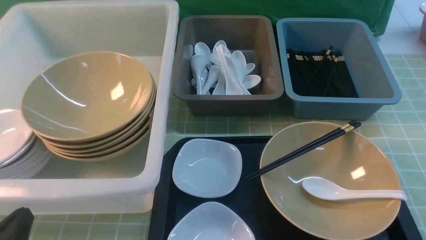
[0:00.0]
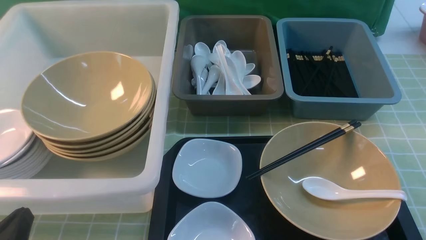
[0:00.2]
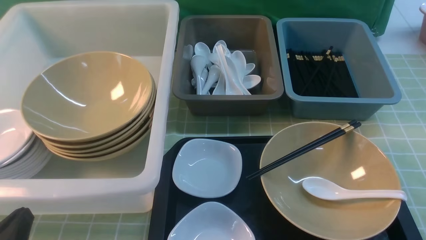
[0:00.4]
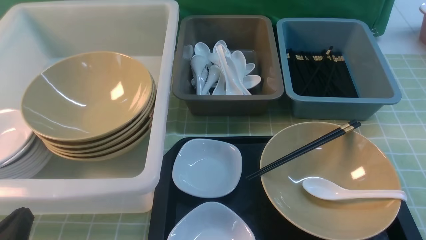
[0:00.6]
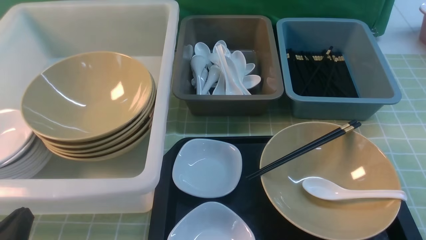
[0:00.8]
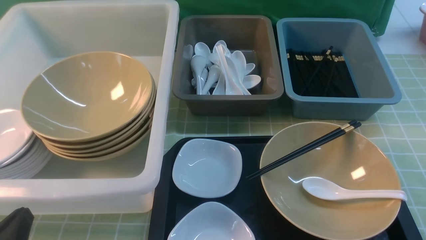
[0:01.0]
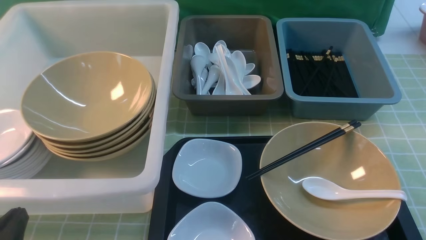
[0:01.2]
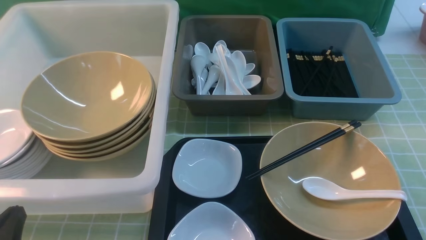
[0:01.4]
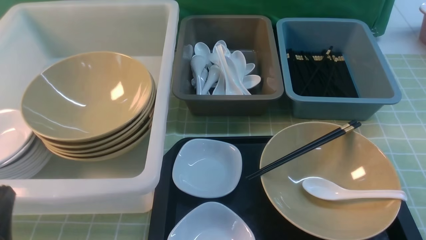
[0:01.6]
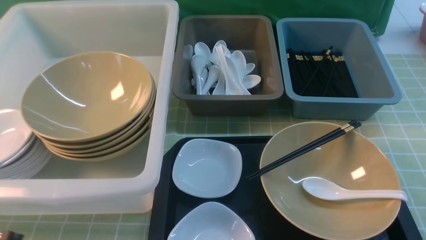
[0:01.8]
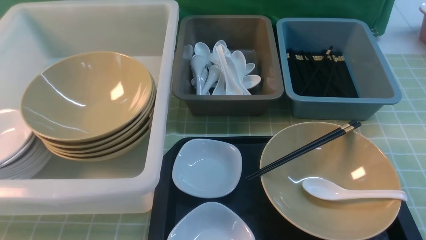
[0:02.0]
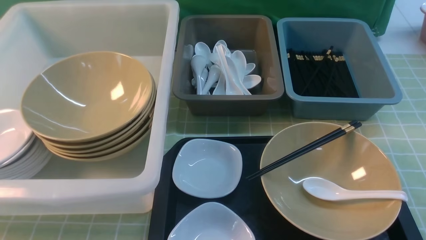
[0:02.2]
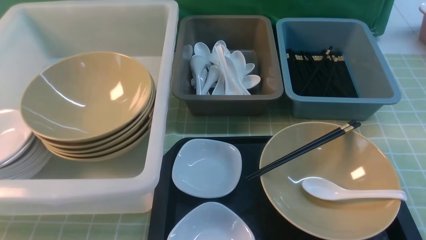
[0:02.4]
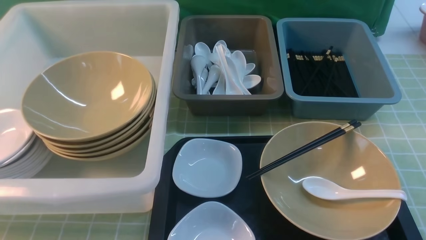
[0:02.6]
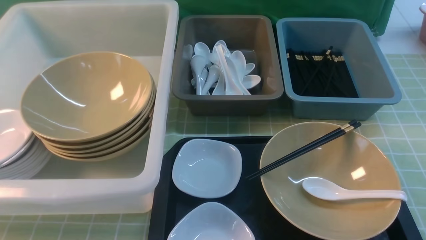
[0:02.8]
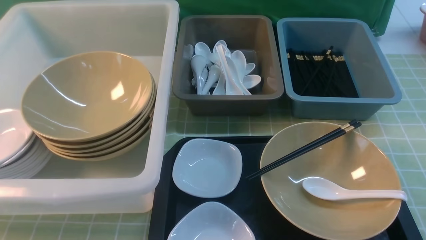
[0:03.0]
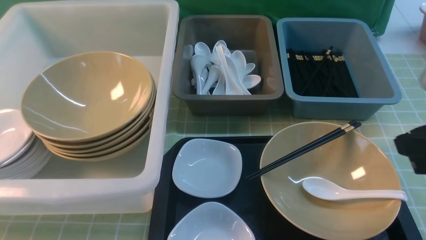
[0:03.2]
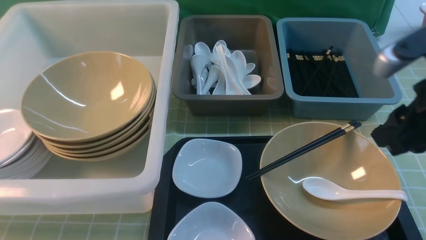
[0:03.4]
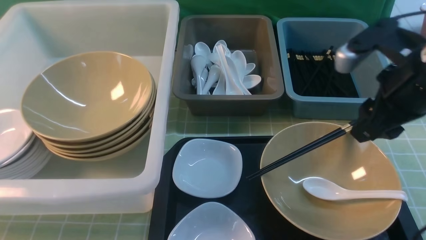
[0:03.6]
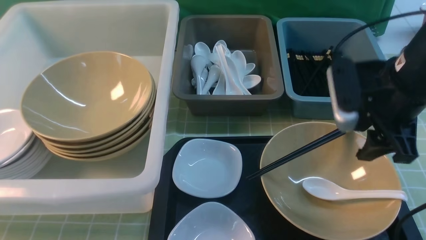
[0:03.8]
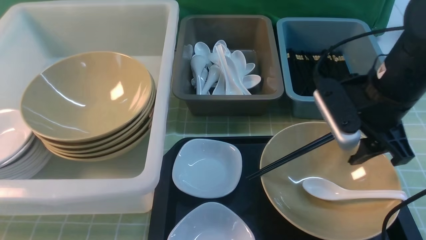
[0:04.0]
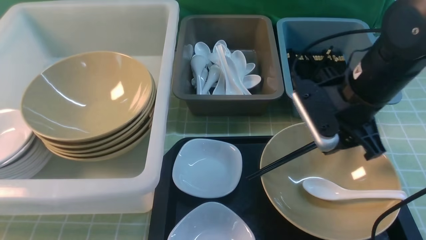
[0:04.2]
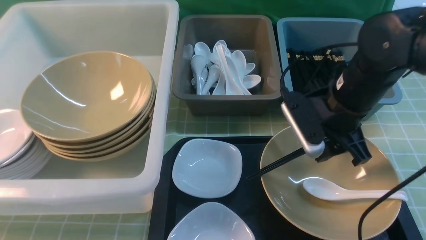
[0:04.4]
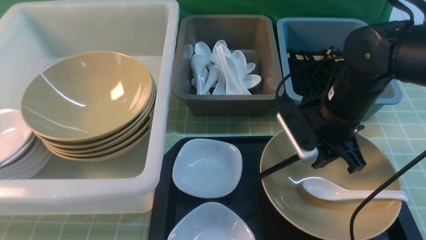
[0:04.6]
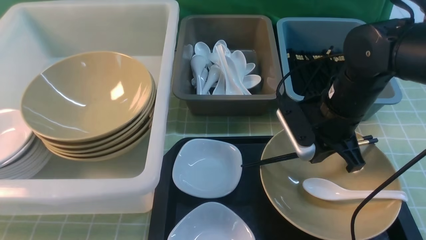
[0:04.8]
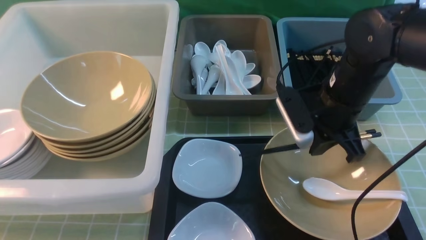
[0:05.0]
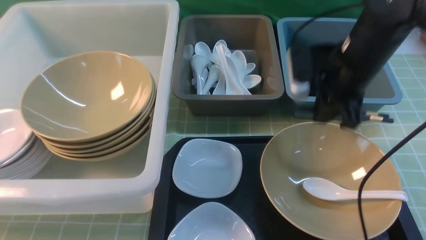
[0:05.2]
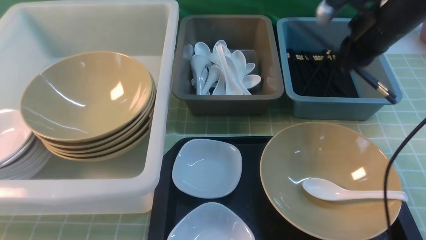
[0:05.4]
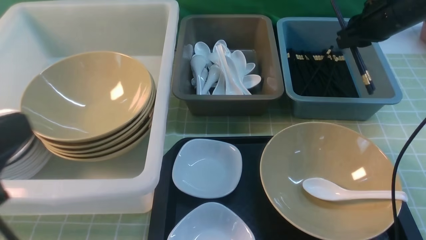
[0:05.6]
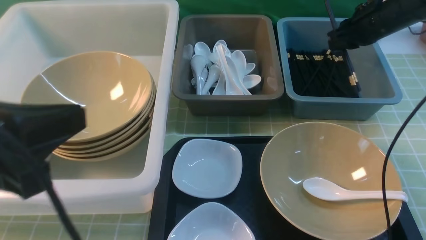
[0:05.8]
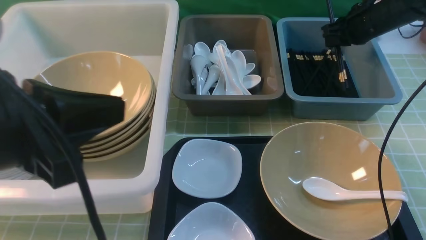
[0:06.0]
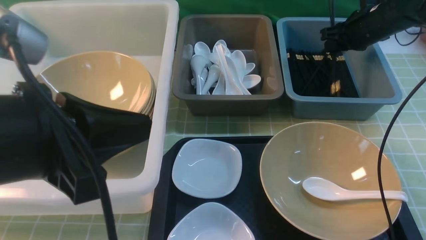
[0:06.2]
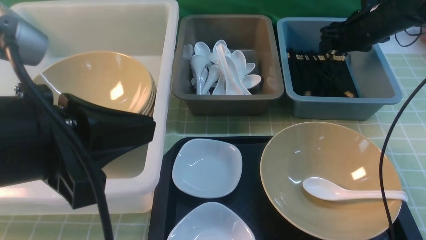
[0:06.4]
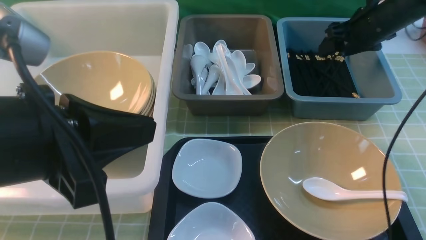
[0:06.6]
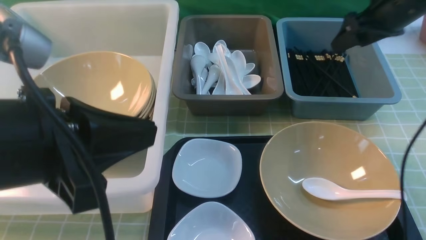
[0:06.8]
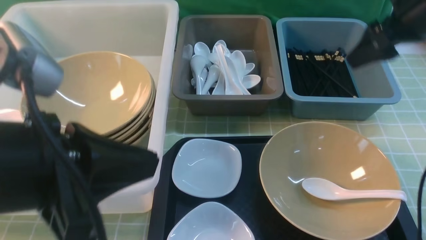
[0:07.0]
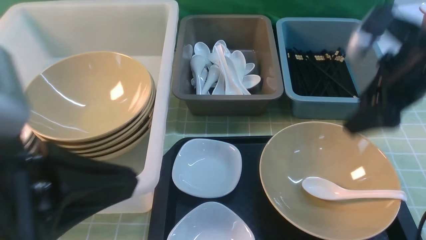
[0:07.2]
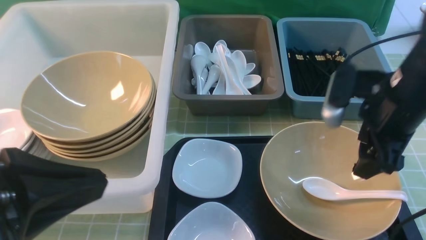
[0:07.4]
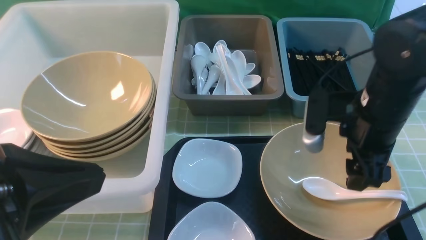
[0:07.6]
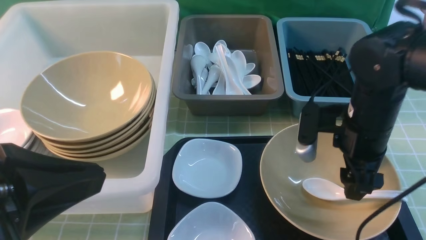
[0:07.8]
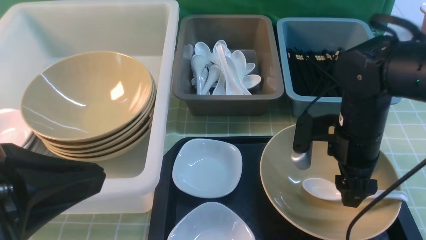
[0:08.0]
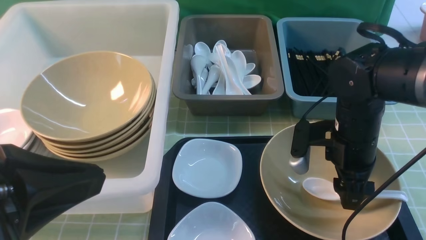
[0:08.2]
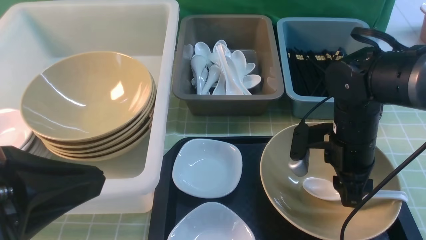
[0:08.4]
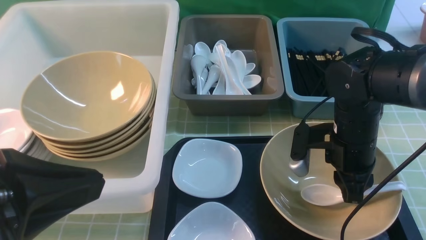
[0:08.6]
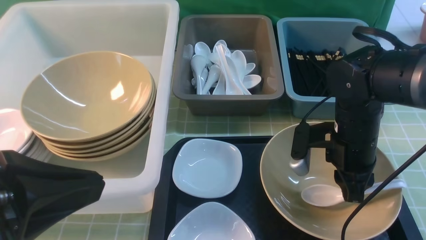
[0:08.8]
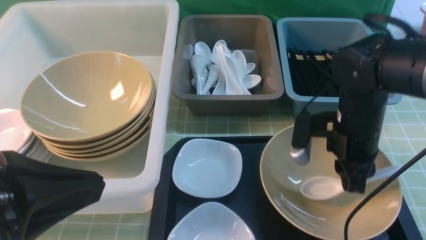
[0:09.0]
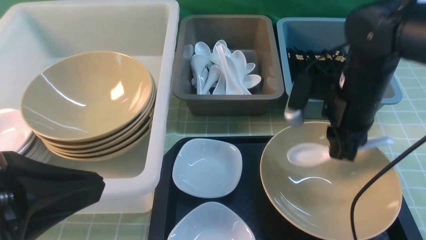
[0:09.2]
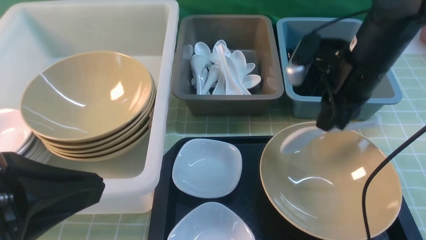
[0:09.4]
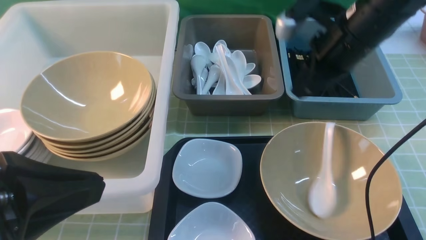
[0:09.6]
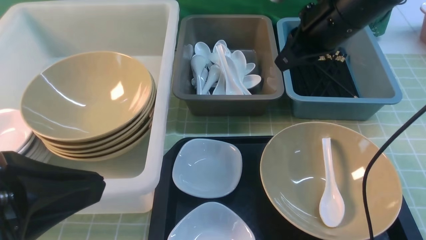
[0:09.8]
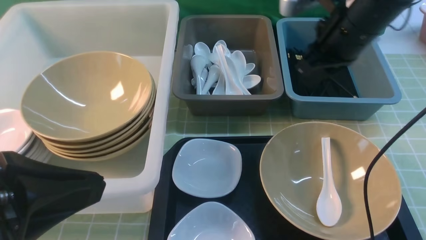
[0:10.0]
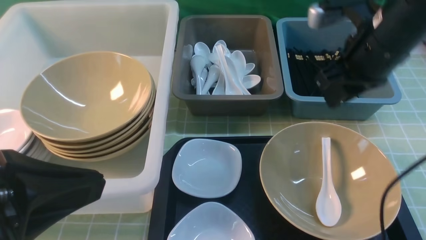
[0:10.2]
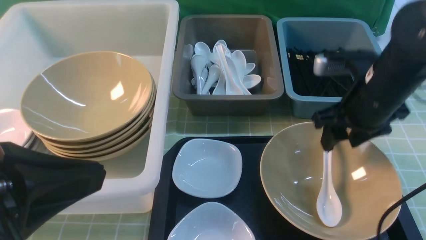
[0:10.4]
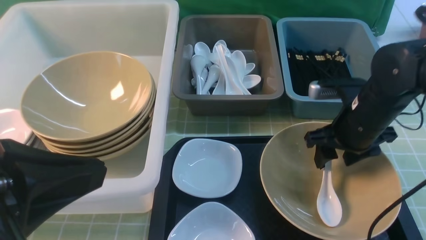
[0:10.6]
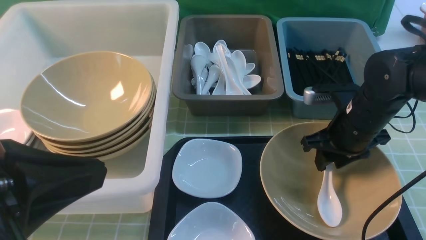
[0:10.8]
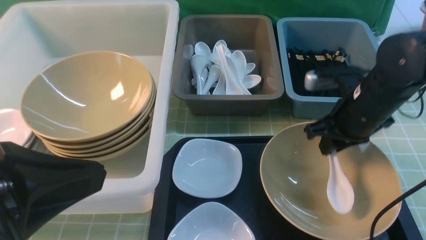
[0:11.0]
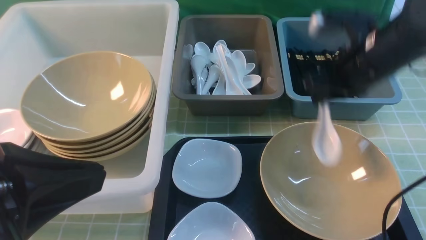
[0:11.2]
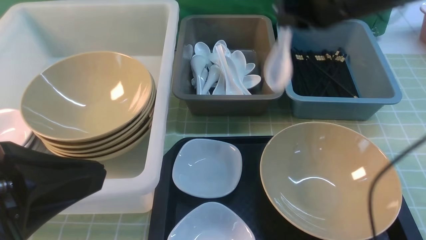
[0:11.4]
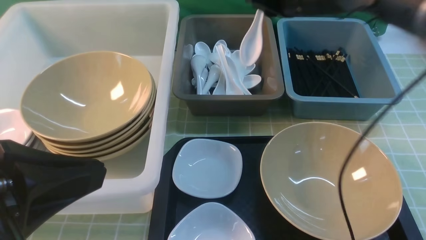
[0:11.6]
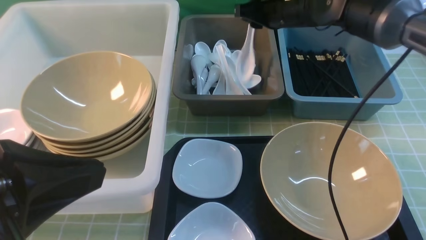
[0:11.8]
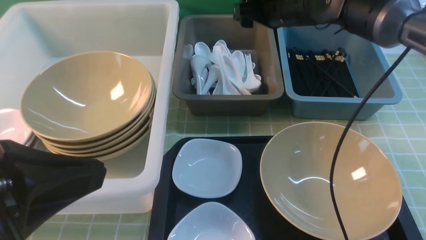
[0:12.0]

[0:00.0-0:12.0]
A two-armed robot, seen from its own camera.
Task of the whole recording: on green table put chopsticks spoon bowls plates into blue grey white boxes.
Step, 0:00.0 to 0:05.0: use the right arm to grab the chopsticks.
Step, 0:05.2 to 0:06.6: use the right arm to put the chopsticks into the small storage box on the right.
Step, 0:06.8 to 0:11.0: use the right arm to grab the soup spoon in the middle.
0:00.0 to 0:01.6: The grippers make only small movements.
0:01.6 to 0:03.0: The left gripper goes approximately 15 cm upward.
0:03.0 to 0:04.4: The right gripper shifts roughly 25 cm forward, to the left and downward.
0:04.4 to 0:06.0: The left gripper is displaced to the right and forward by roughly 10 cm, while the right gripper goes about 20 cm forward and to the right, and closes.
0:06.0 to 0:07.6: The right gripper moves backward and to the left, about 20 cm, and opens up.
0:07.6 to 0:09.0: The right gripper closes.
0:09.0 to 0:10.4: The right gripper reaches roughly 10 cm upward, then returns, and opens.
0:10.4 to 0:12.0: The right gripper moves forward, to the left and upward, about 15 cm, and closes, then opens again.

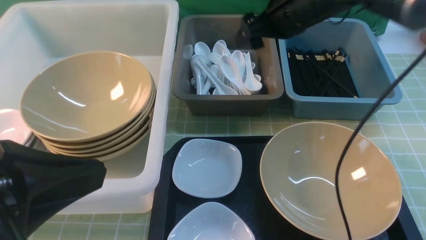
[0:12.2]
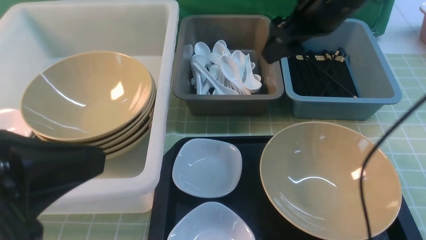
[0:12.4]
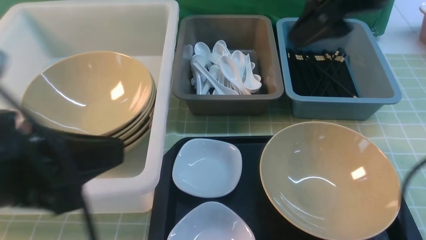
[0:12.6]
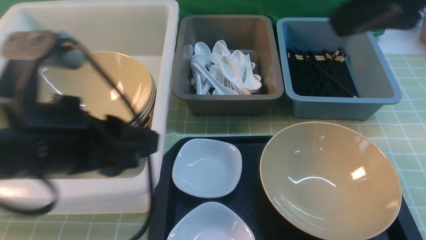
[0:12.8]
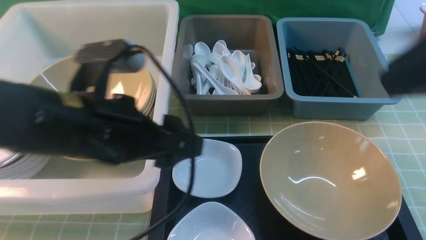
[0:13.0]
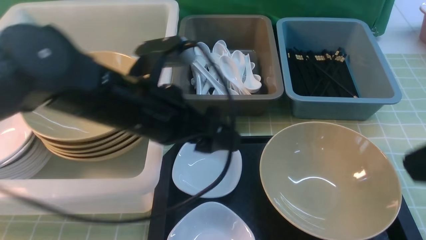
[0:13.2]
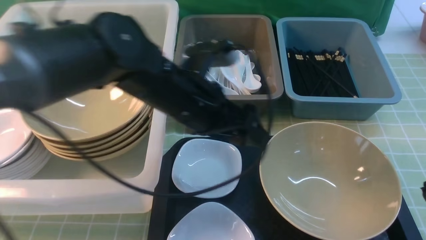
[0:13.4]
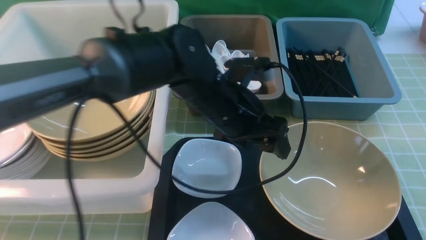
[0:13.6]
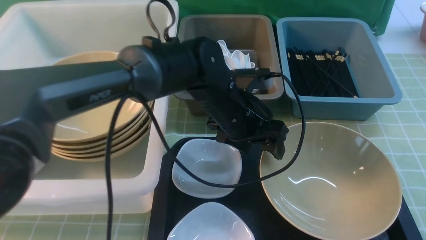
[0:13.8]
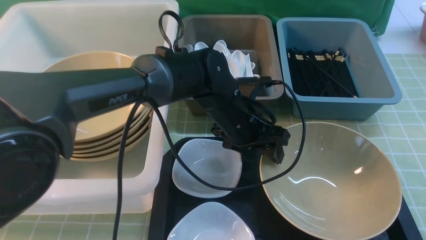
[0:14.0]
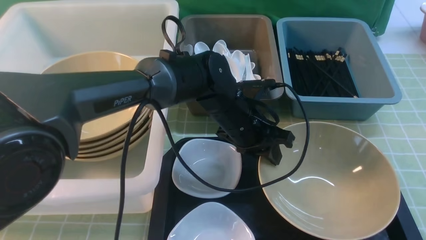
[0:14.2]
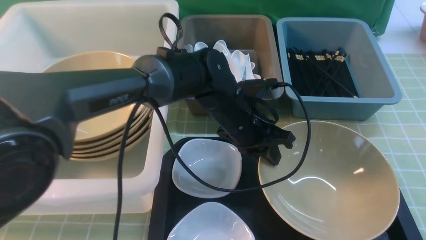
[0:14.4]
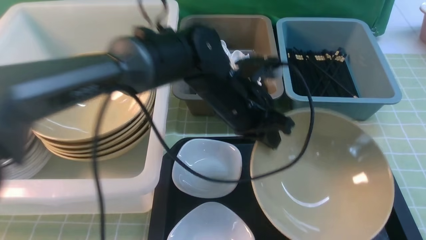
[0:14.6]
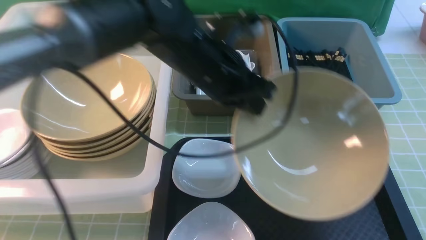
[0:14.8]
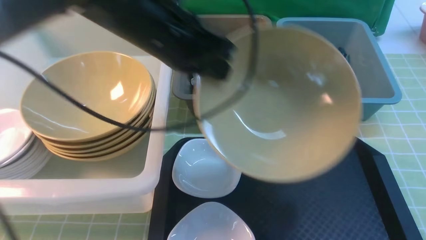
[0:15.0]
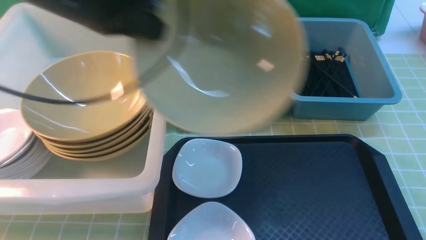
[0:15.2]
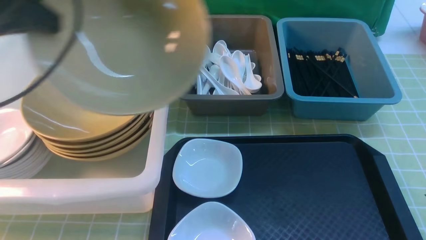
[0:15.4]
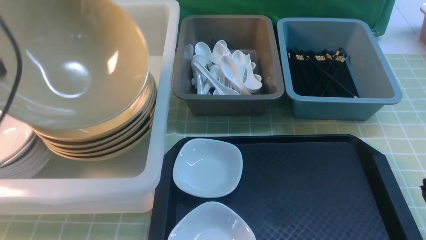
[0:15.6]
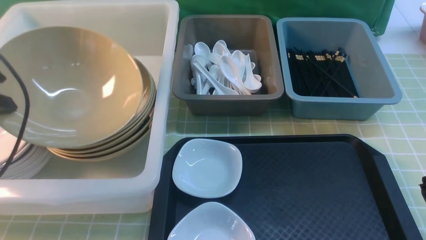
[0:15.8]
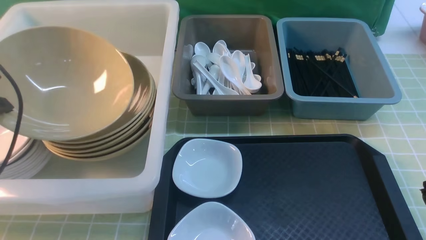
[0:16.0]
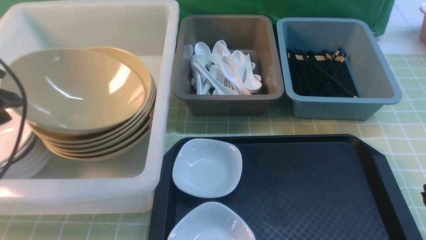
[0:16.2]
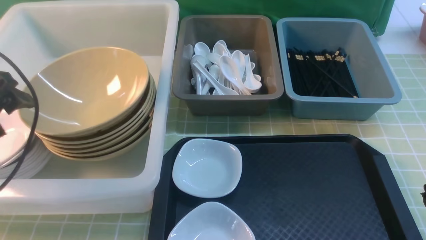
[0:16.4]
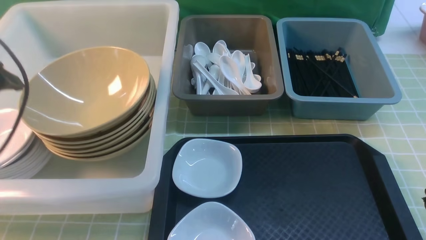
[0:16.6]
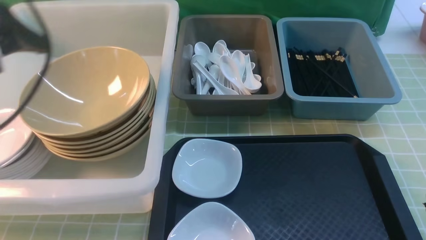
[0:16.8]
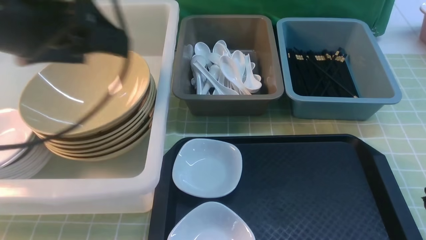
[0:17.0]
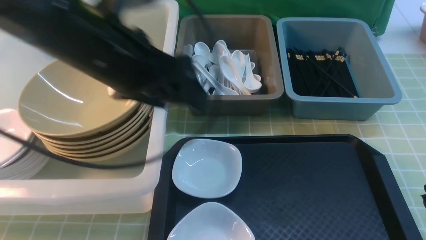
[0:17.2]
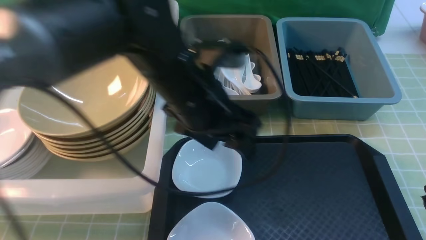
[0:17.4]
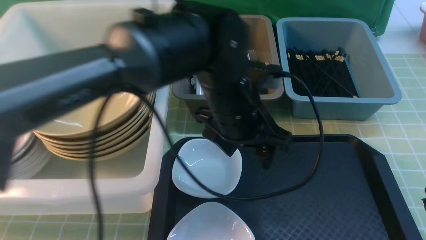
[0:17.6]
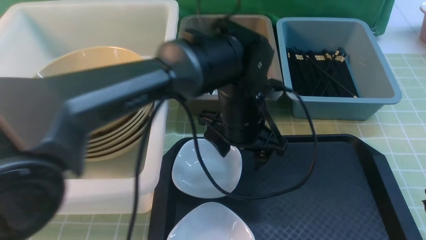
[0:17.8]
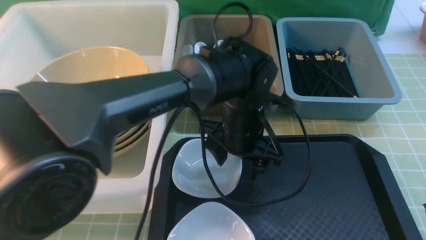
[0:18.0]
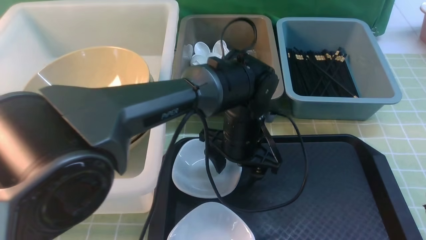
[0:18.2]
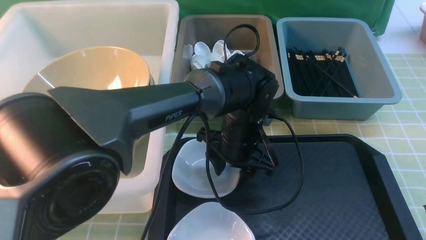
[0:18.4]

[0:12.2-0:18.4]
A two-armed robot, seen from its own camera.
Task of the whole recording: on green table put chopsticks spoon bowls plates into blue grey white boxes.
Step, 0:12.6 to 0:15.0: use the left arm to grab the yellow noodle bowl on the left.
Step, 0:15.2 to 0:16.8: use the left arm to put the noodle bowl into the large storage box on the left.
0:12.2 to 0:13.8: The left gripper heads forward, to the right and downward, covering about 35 cm, and opens, while the right gripper moves backward, about 35 cm, and closes.
0:13.8 to 0:15.4: The left gripper shifts roughly 35 cm to the left and upward, and closes its fingers.
0:15.4 to 0:16.8: The left gripper goes downward and returns, about 10 cm each way, and opens.
0:16.8 to 0:18.4: The left gripper goes about 35 cm to the right and downward, and closes its fingers.
